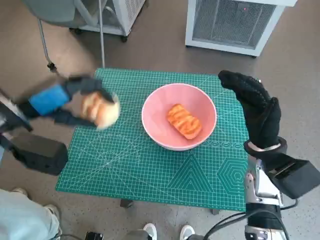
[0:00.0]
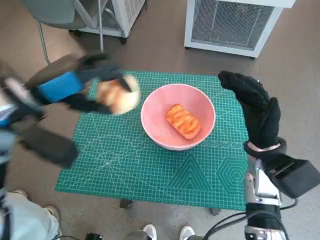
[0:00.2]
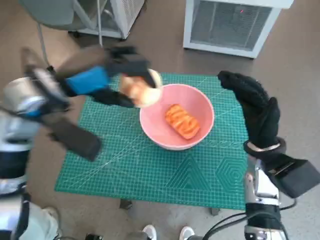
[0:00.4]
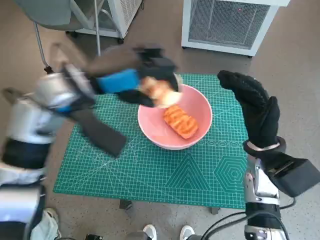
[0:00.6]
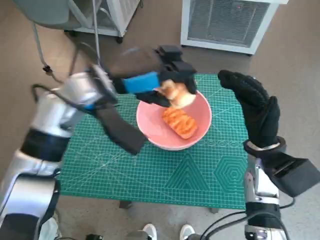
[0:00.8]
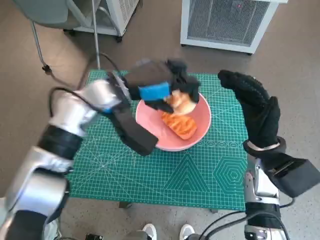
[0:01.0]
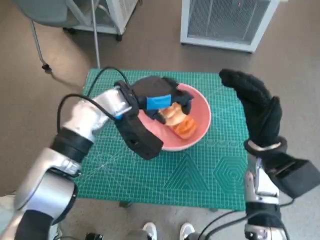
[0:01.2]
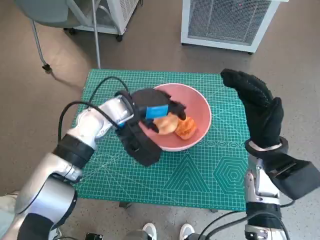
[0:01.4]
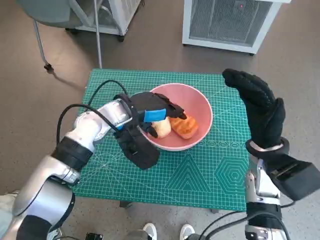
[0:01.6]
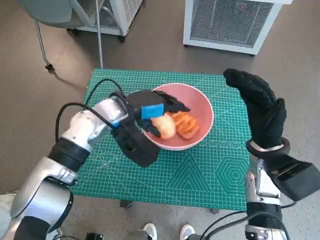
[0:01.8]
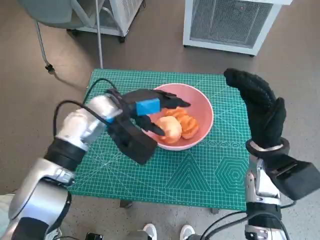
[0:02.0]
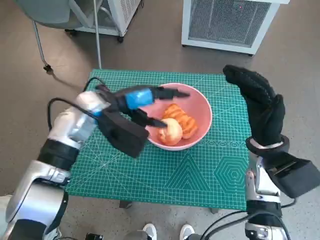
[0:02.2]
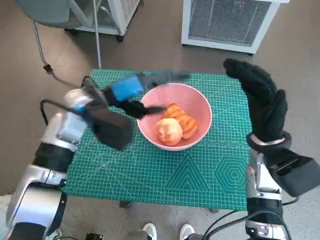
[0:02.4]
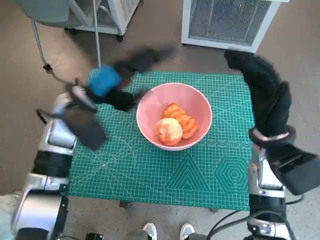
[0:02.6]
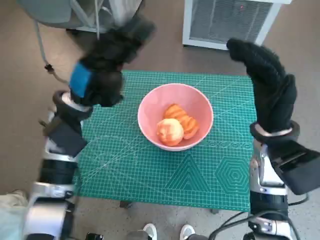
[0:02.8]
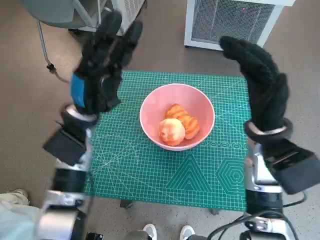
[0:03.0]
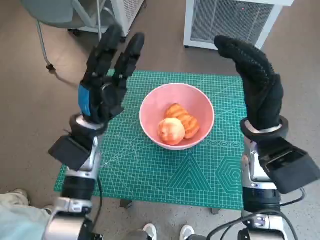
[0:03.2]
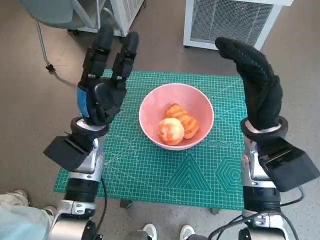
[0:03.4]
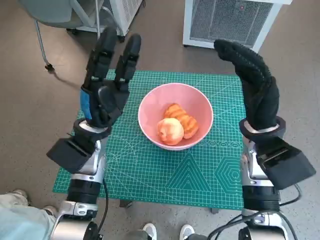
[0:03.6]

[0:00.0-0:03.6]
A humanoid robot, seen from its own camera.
Task of the whole recording: Push the bowl to the center of the table and put the bread into the bowl.
Step, 0:00.0 to 0:02.0: Place the round bread in pink bowl with left hand.
0:00.0 to 0:01.8: The left hand shifts approximately 20 cm to the right, forward and downward.
0:01.8 to 0:03.6: The right hand changes place by roughly 5 cm, while the left hand ends up some 5 cm from where it was.
